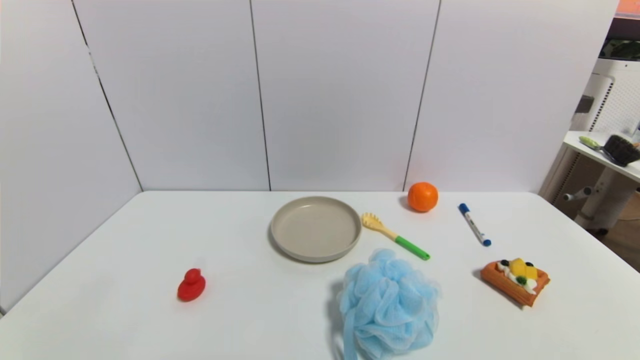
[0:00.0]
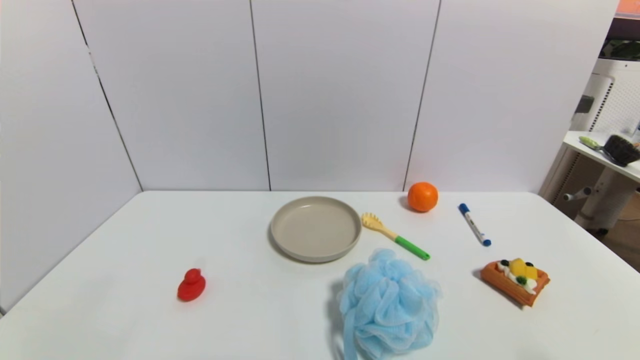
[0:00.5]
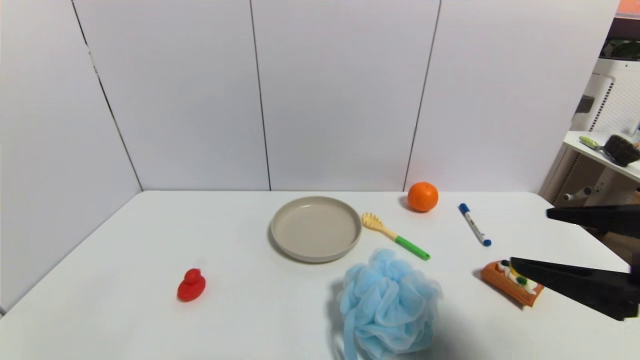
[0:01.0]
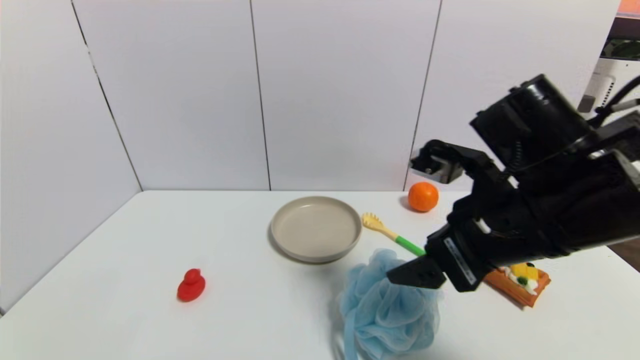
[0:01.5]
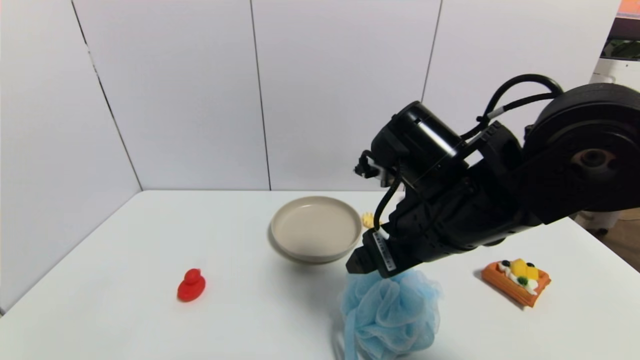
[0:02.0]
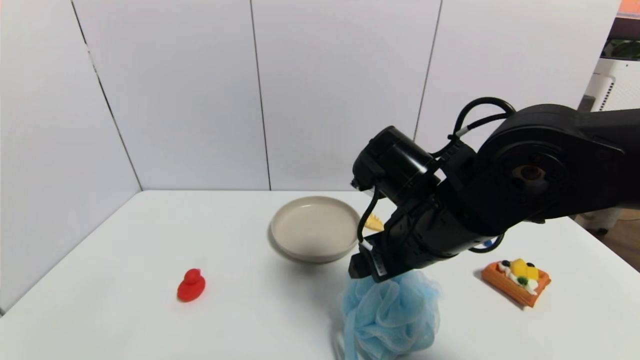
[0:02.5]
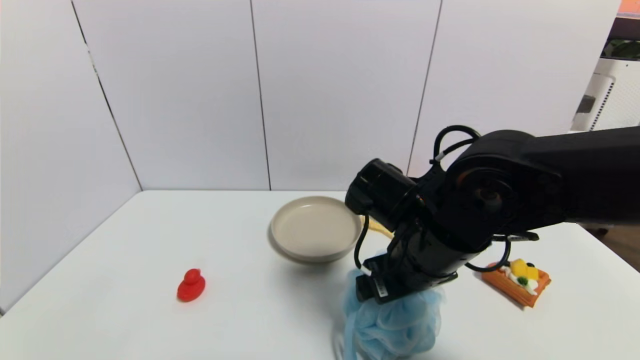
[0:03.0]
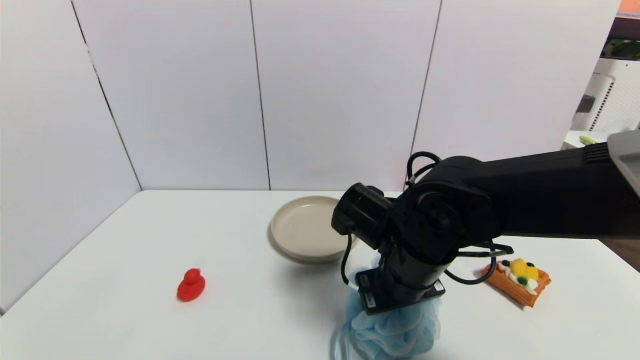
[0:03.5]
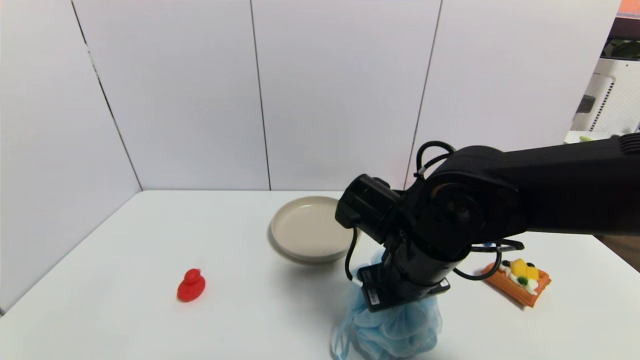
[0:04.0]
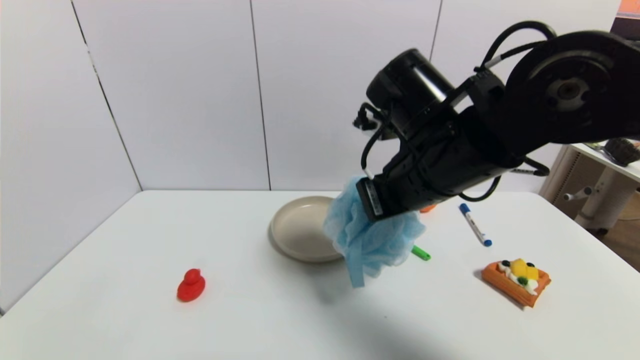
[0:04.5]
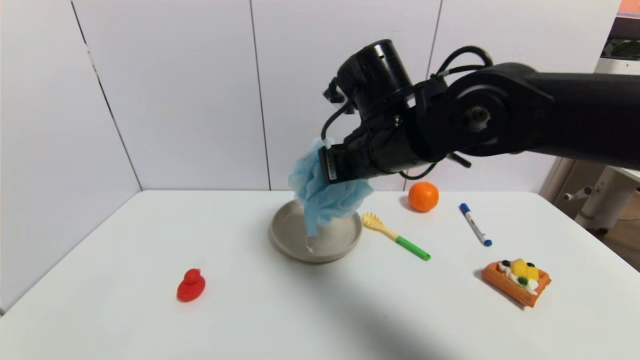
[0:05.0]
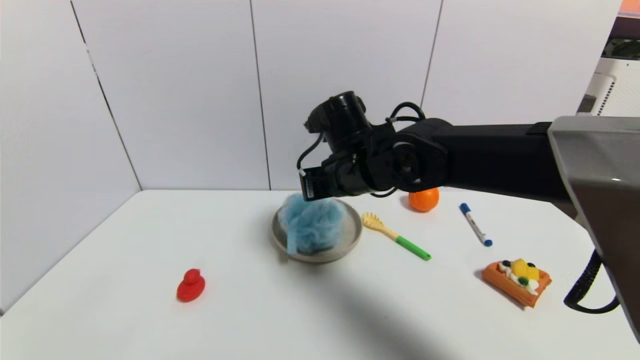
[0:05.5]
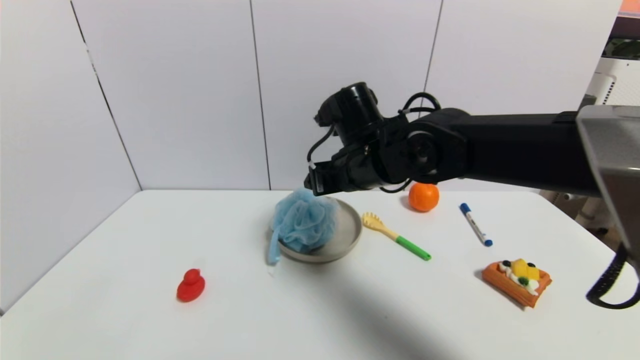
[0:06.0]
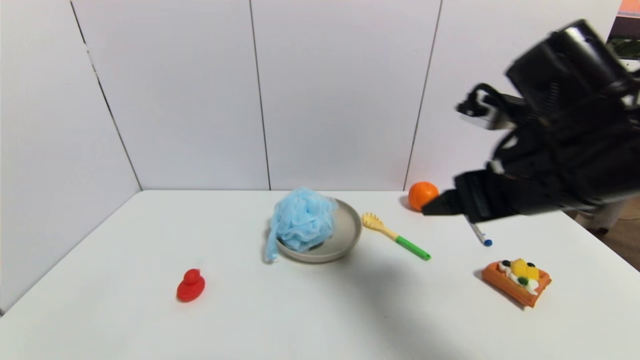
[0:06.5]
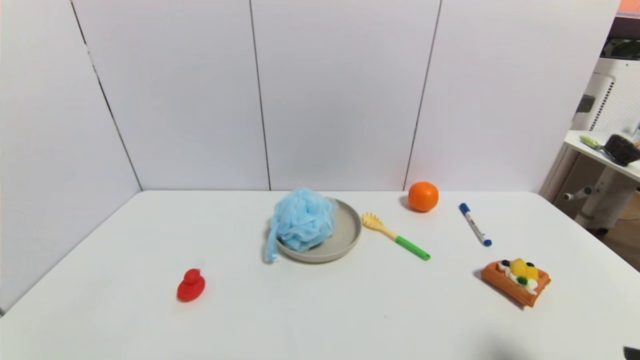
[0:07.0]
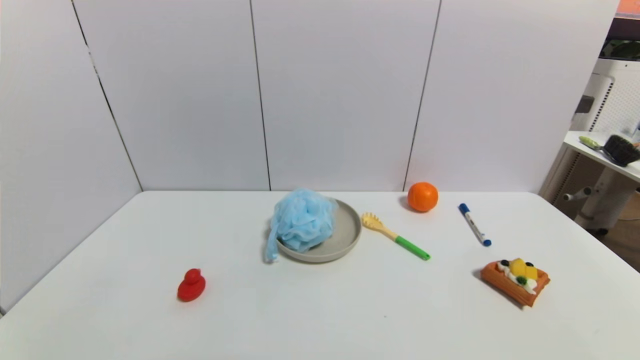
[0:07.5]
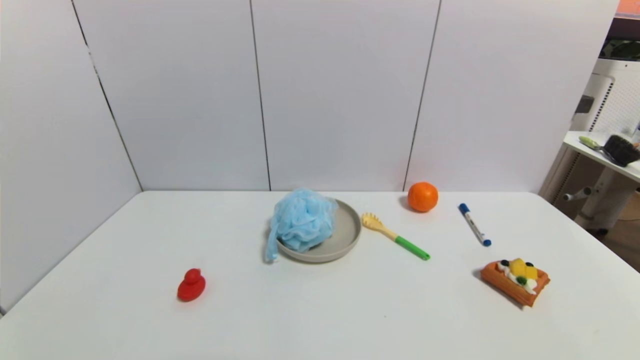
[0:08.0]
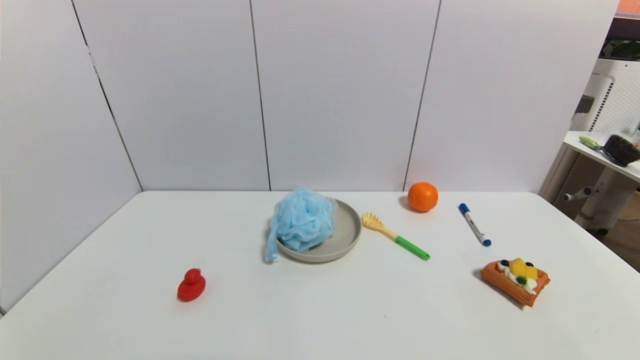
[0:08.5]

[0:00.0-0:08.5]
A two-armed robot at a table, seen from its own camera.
Task of the whole recording: use a gripper to pick the target object and place on the brown plate.
Step, 0:00.0 to 0:04.0: Grasp the shower sphere with the right gripper.
Step, 0:04.5 to 0:06.0: Place the shower sphere on the brown plate with the right gripper.
0:00.0 to 0:02.0: The right gripper heads forward, to the left and upward, covering roughly 35 cm.
0:02.0 to 0:04.0: The right gripper is displaced downward by roughly 5 cm, and closes.
0:04.0 to 0:06.5: The right gripper travels upward and to the right by some 15 cm, and opens.
0:06.5 to 0:08.5: The right gripper moves backward, downward and to the right, approximately 35 cm.

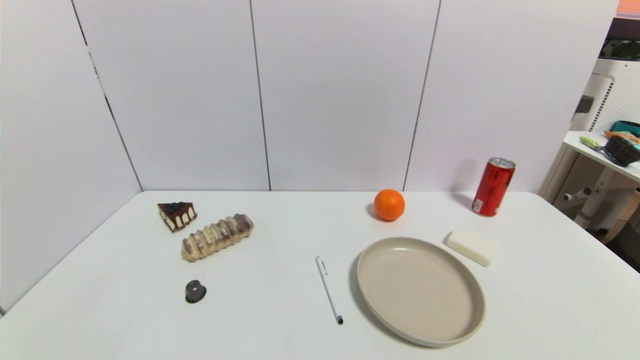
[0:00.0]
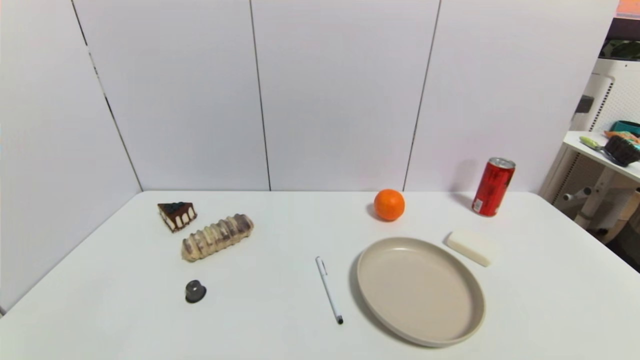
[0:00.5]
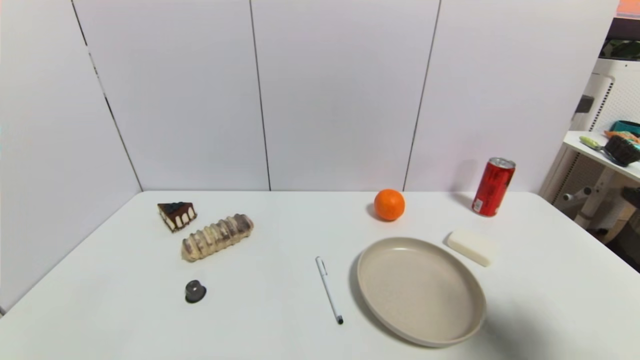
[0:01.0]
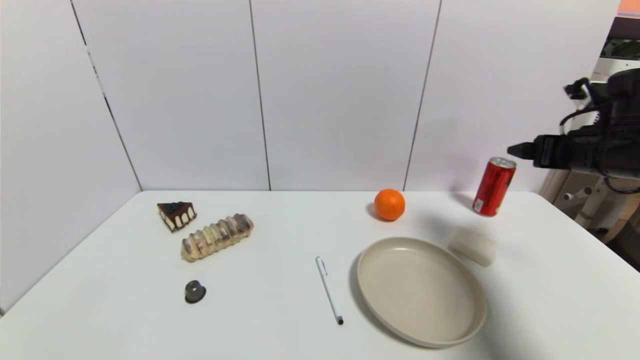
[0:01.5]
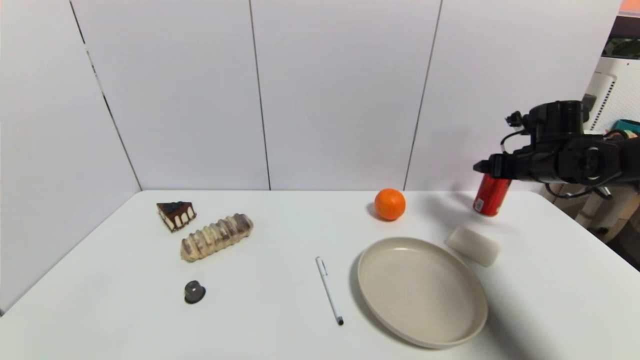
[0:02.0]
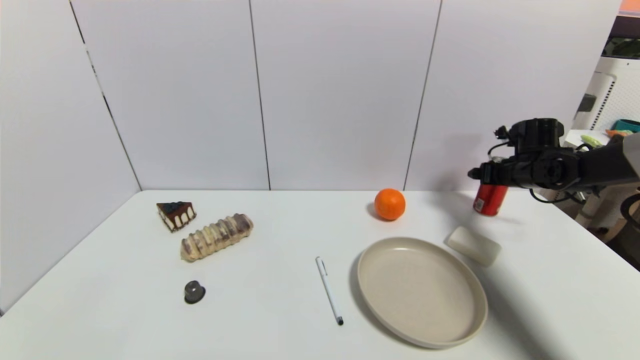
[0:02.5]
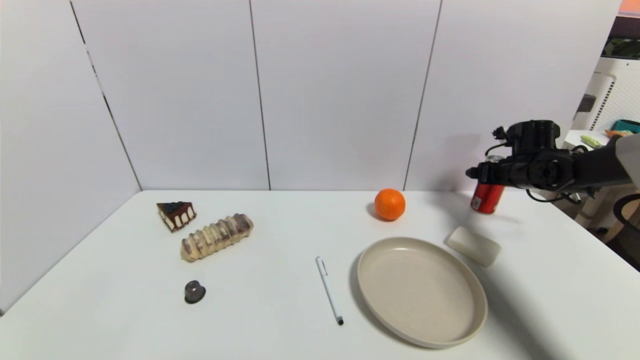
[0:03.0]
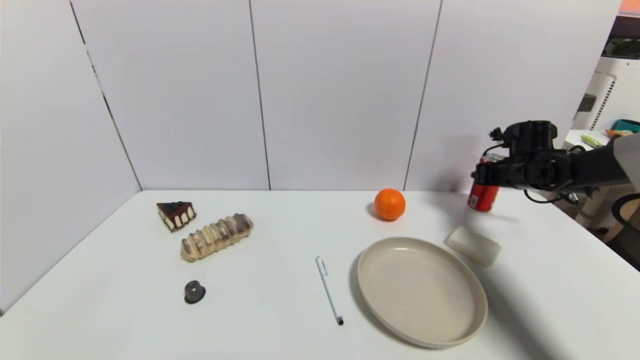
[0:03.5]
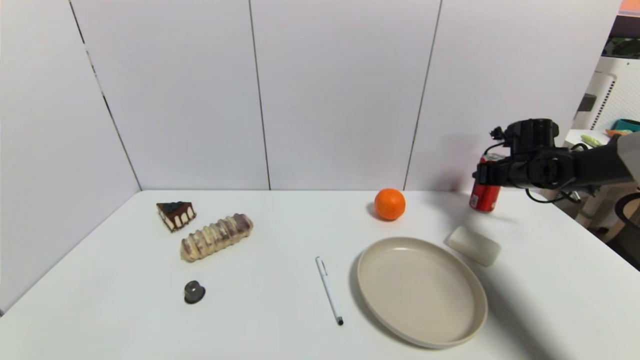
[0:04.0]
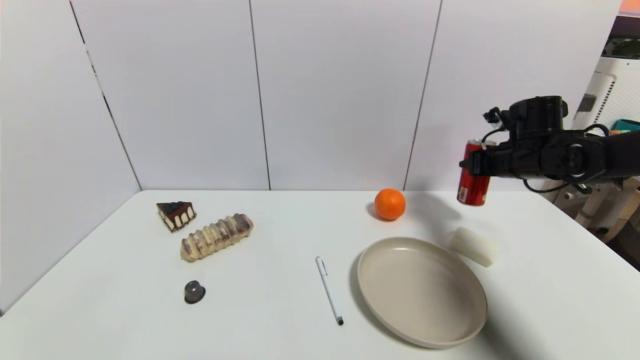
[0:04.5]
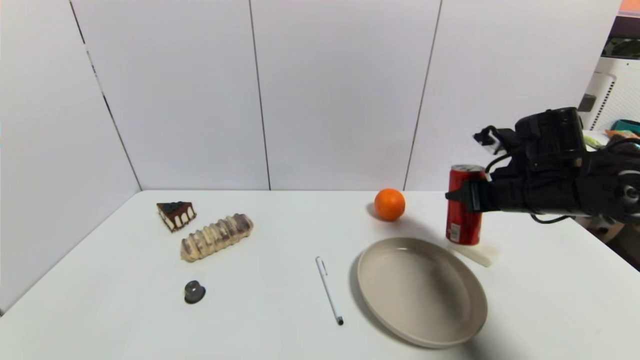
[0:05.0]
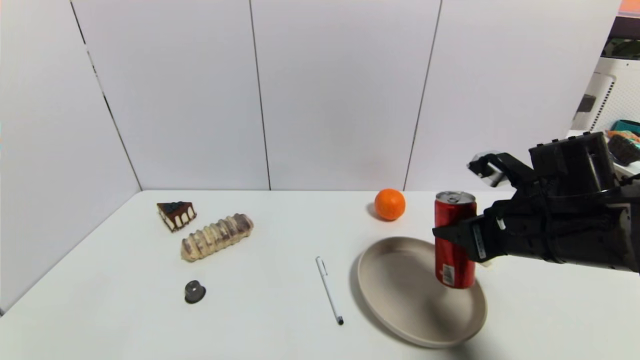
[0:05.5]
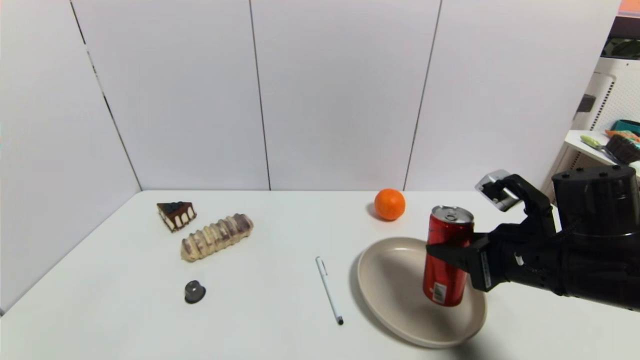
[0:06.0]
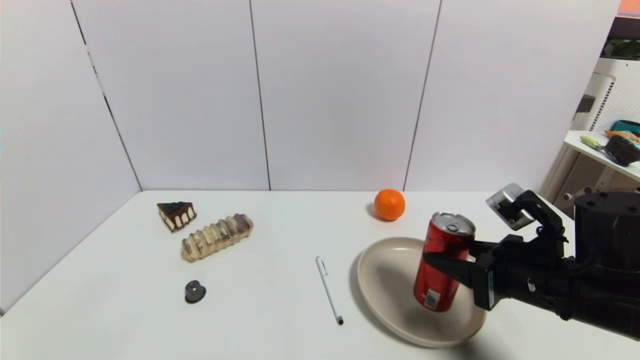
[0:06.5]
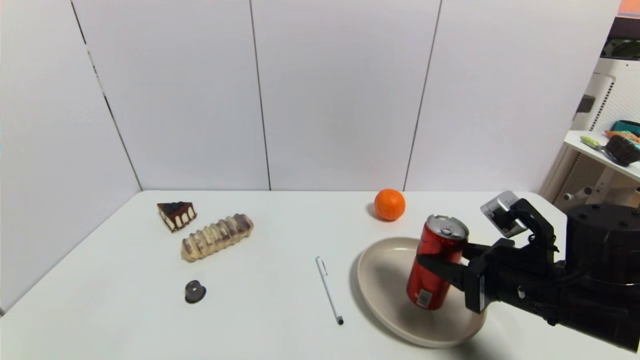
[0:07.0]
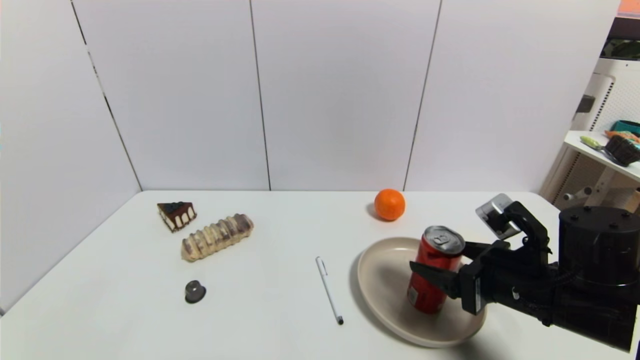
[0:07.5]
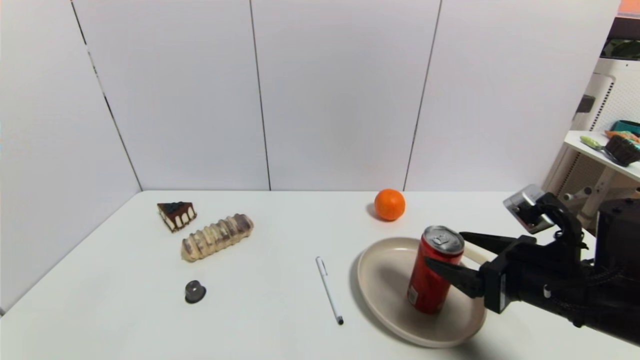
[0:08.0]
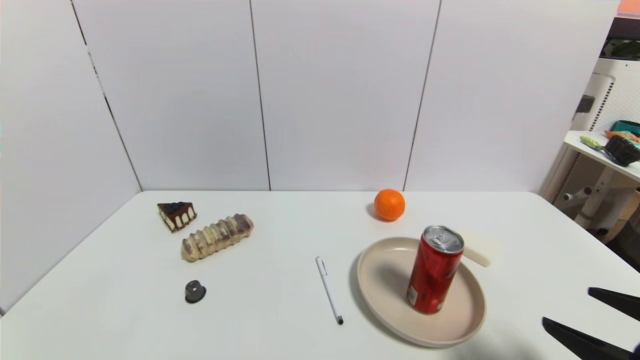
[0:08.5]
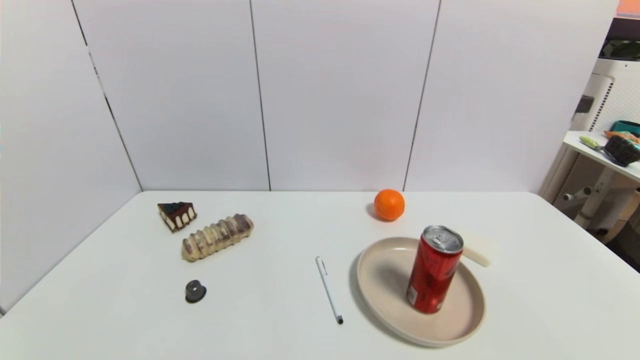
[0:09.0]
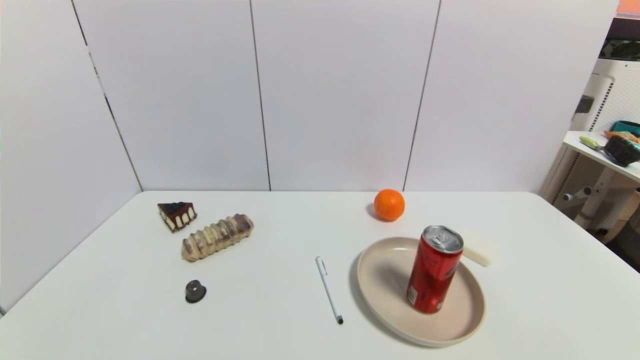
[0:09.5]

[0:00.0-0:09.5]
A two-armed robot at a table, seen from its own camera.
Task of the whole recording: use a gripper to pick the target object and place on the brown plate.
Step, 0:00.0 to 0:03.5: Grasp the coke with the right gripper.
Step, 0:04.0 to 0:07.5: Place the coke on the brown plate with the right gripper.
0:00.0 to 0:02.0: The right gripper shifts some 40 cm forward.
0:02.0 to 0:04.0: The right gripper ends up about 5 cm from where it was, and closes up.
0:04.0 to 0:05.5: The right gripper shifts about 25 cm backward and to the left.
0:05.5 to 0:07.5: The right gripper shifts about 5 cm downward, and opens up.
0:07.5 to 0:09.5: The right gripper moves backward and to the right, approximately 25 cm.
